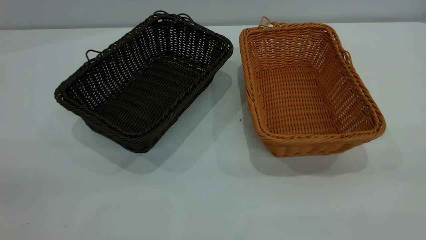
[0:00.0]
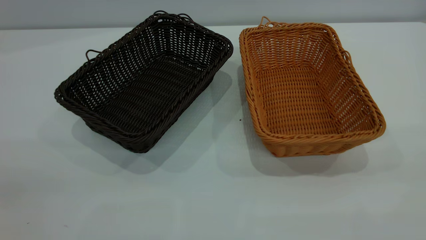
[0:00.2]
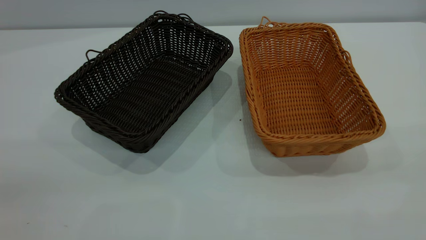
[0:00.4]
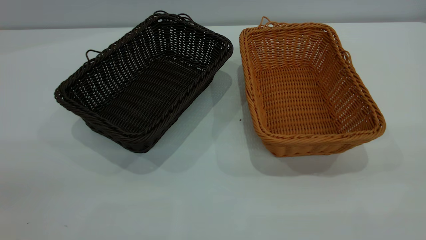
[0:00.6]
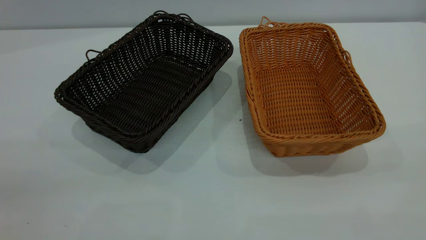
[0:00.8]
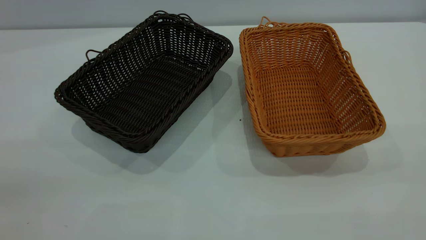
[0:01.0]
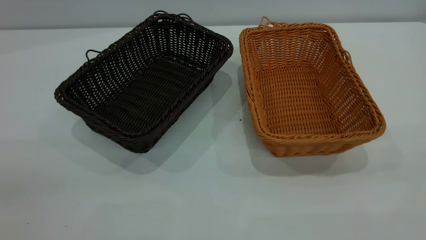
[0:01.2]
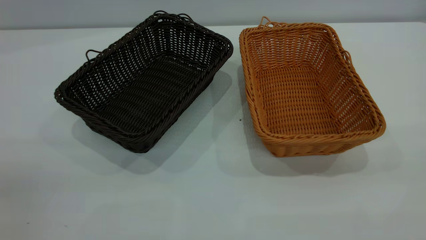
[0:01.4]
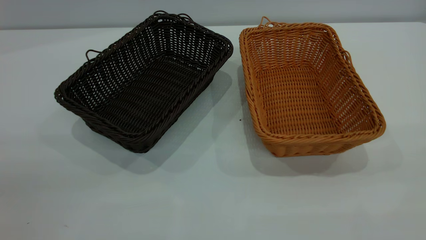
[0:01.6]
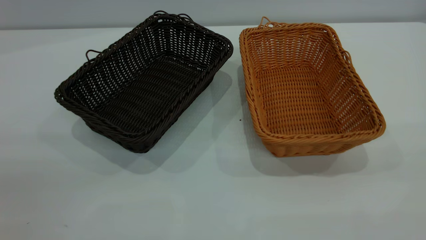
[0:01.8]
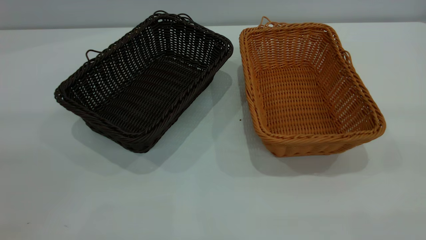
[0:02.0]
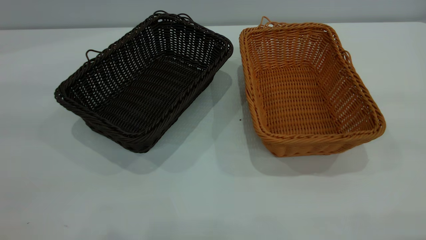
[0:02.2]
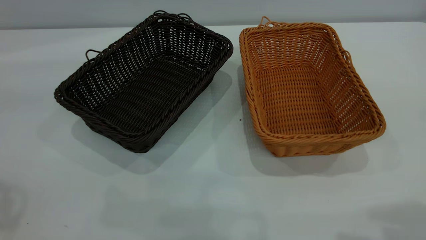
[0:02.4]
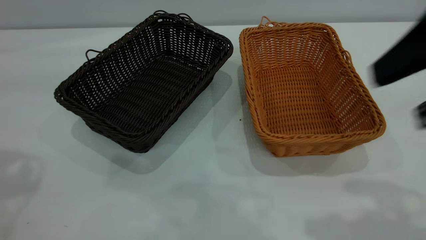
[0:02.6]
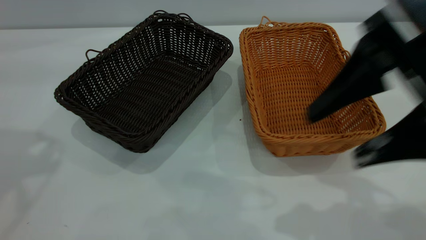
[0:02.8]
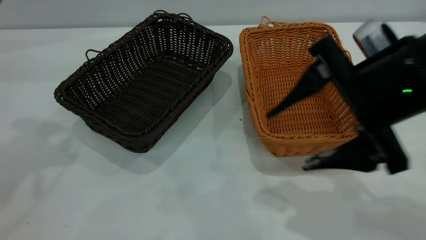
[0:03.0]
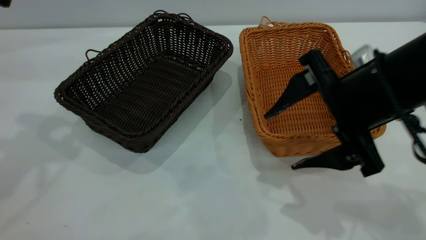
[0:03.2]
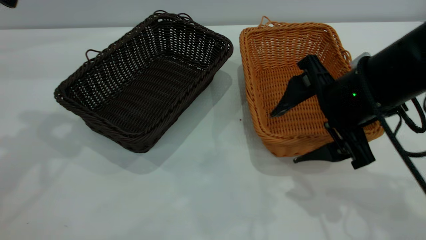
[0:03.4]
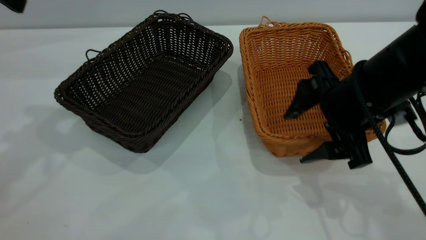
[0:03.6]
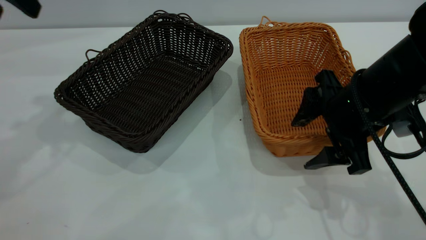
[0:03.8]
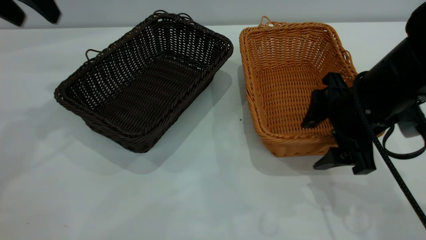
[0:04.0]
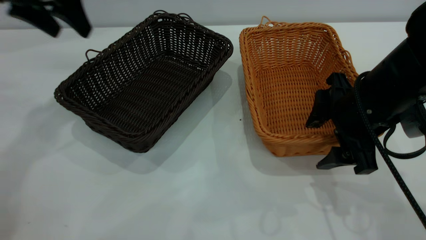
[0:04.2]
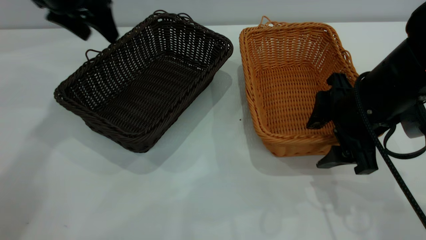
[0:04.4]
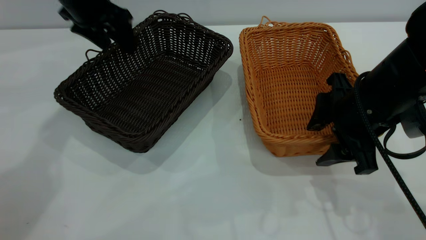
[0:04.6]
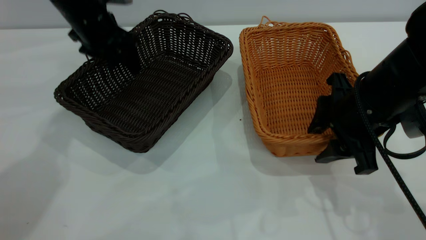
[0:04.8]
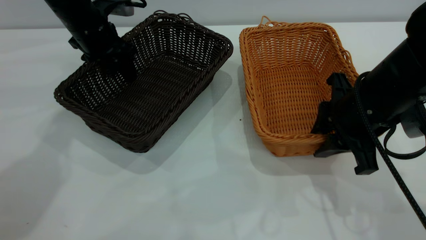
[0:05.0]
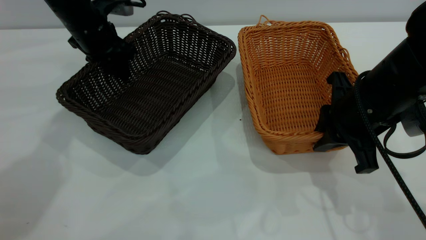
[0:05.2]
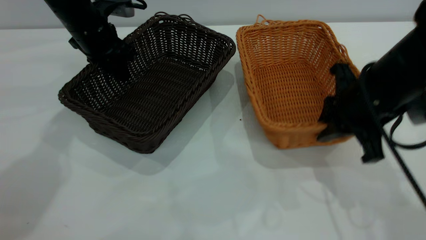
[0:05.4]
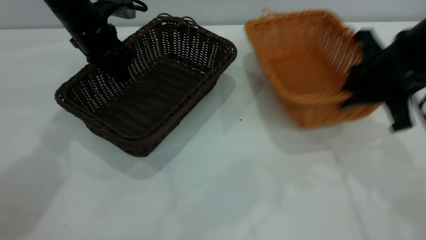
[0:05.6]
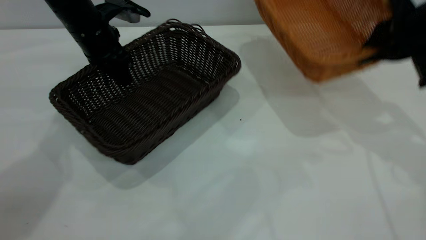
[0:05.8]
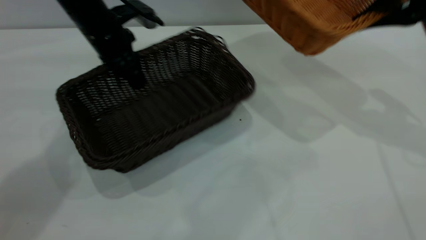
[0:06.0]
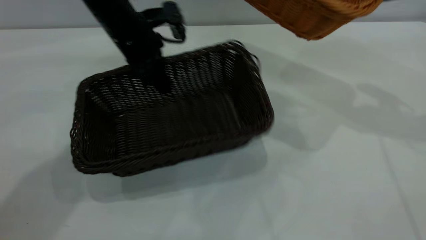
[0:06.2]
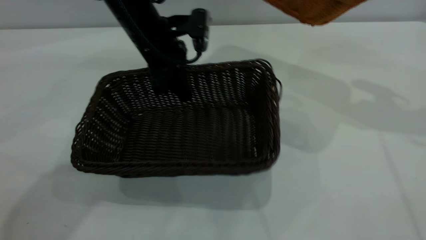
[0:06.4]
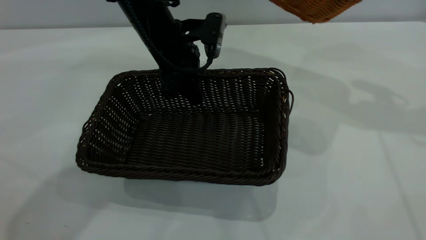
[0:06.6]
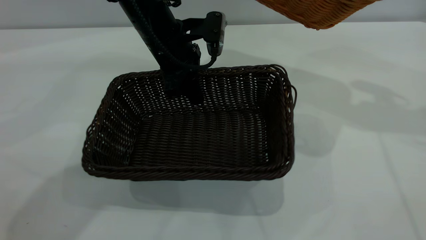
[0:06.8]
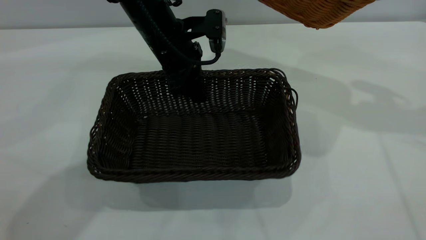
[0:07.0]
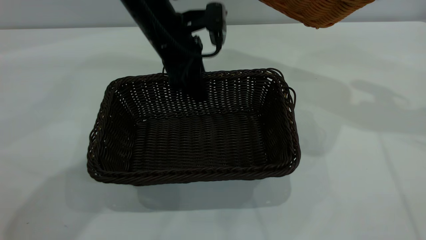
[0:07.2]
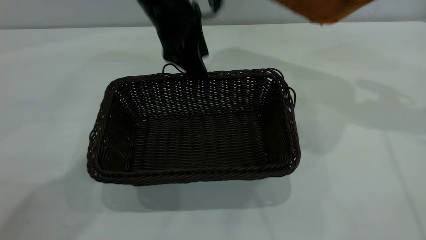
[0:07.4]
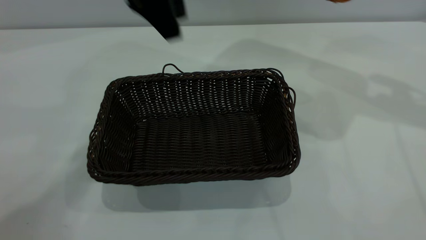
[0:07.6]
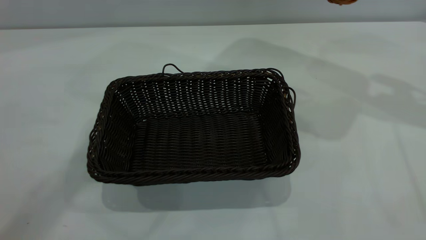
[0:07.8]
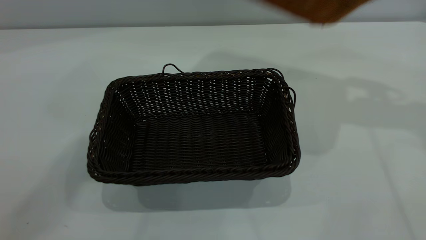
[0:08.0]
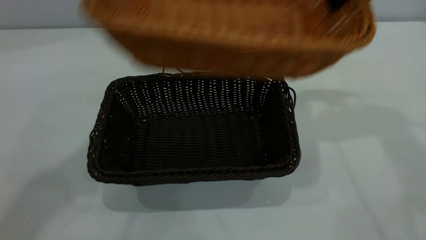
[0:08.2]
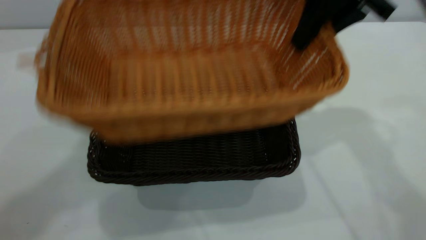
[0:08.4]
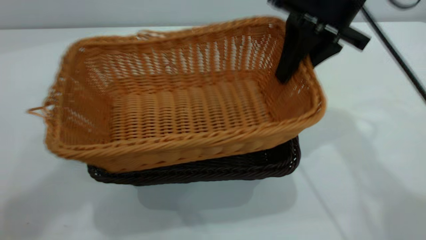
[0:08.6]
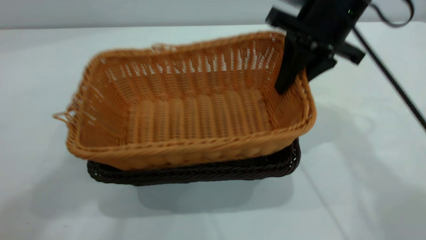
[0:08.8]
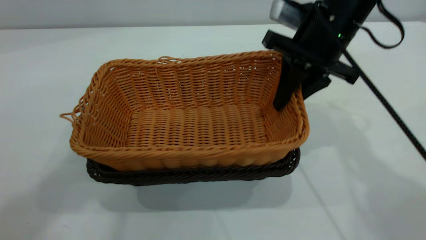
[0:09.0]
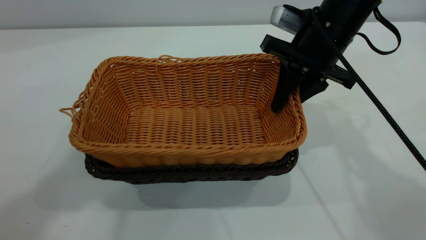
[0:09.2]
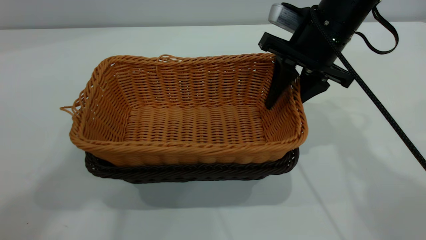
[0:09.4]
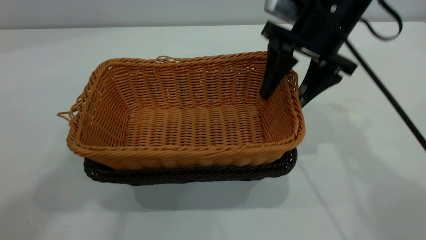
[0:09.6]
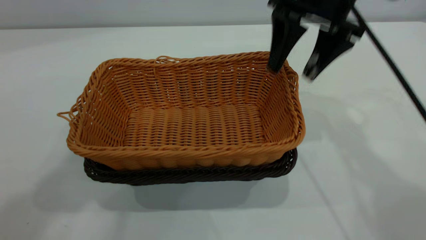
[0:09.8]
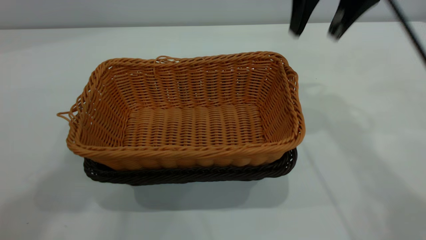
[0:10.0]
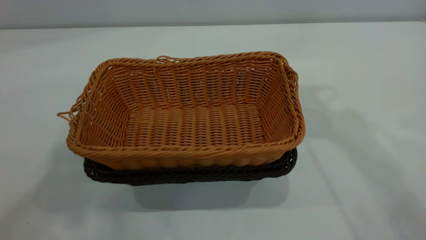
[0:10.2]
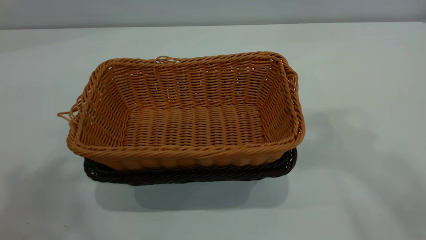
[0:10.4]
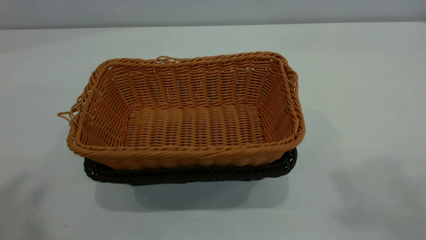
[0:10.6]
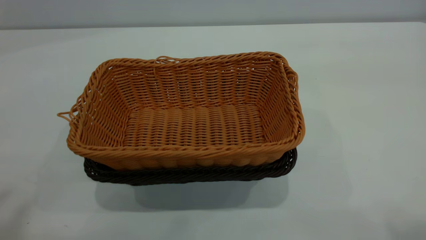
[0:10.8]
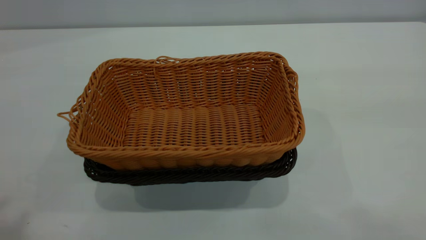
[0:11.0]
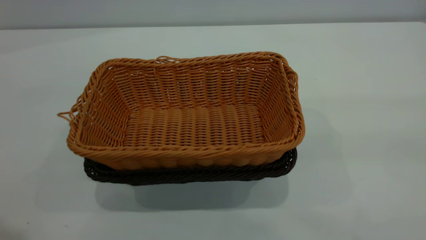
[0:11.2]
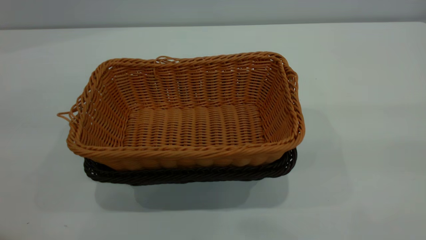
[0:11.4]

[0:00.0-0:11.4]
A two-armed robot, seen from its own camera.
Task of the whole recording: the left gripper grasp the black basket and place it in the center of the table, the right gripper grasp the brown basket and place it inside the black one.
Step, 0:00.0 to 0:05.6: Pick up the light basket with the right gripper.
Step, 0:05.8 to 0:07.4: Move the dark basket to the center of view.
Step, 0:07.6 to 0:09.8: Place the light basket on the dark basket.
0:00.0 to 0:01.4: Neither gripper changes place.
0:01.4 to 0:02.8: The right gripper moves forward, downward and to the left, some 25 cm.
0:02.8 to 0:04.2: The left gripper heads forward and downward, covering roughly 20 cm; the right gripper goes some 15 cm downward and forward.
0:04.2 to 0:05.6: The right gripper goes roughly 5 cm to the right, and closes. Meanwhile the left gripper travels downward by roughly 10 cm, and closes.
0:05.6 to 0:07.2: The left gripper goes approximately 15 cm to the right, and opens up, while the right gripper is displaced upward and forward by some 15 cm.
0:07.2 to 0:08.6: The left gripper goes roughly 40 cm upward and backward. Meanwhile the right gripper goes about 15 cm to the left and downward.
0:08.6 to 0:10.0: The right gripper heads upward, covering approximately 10 cm, and opens.
0:10.0 to 0:11.4: The right gripper shifts roughly 35 cm backward. The left gripper moves backward, downward and to the left, some 20 cm.
